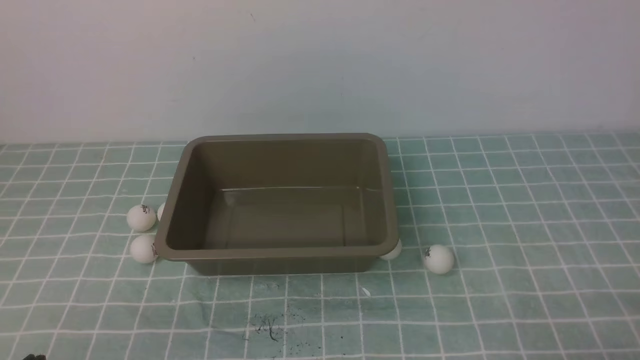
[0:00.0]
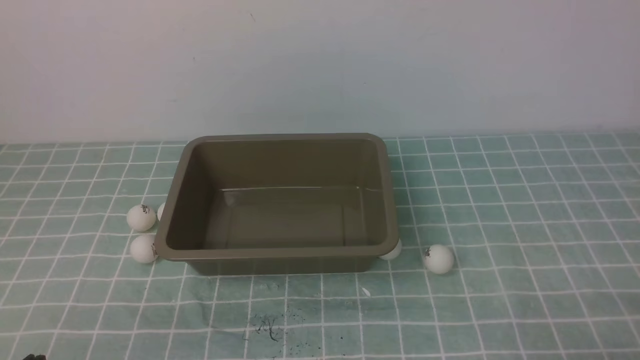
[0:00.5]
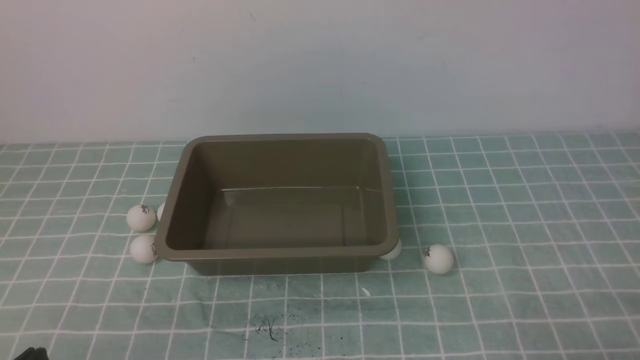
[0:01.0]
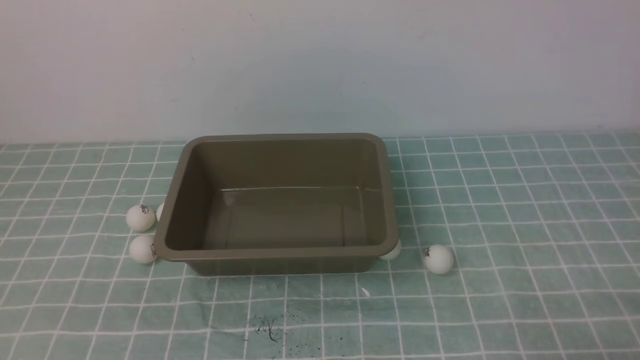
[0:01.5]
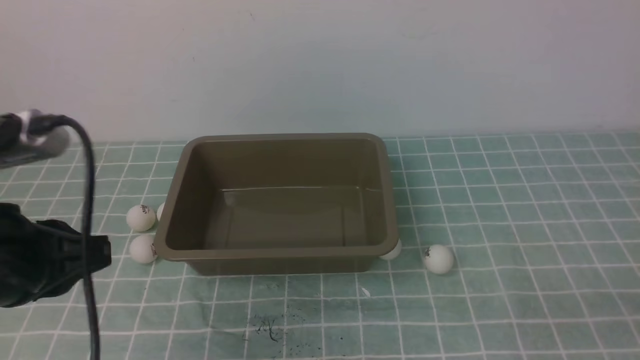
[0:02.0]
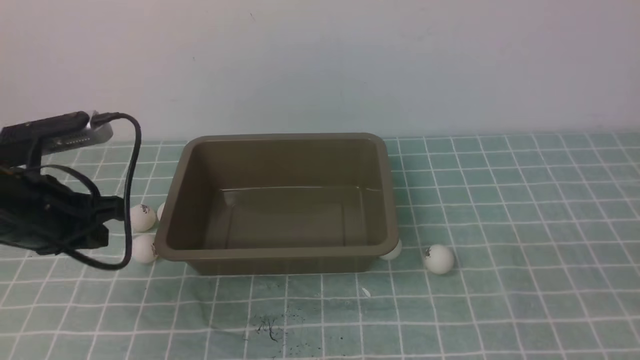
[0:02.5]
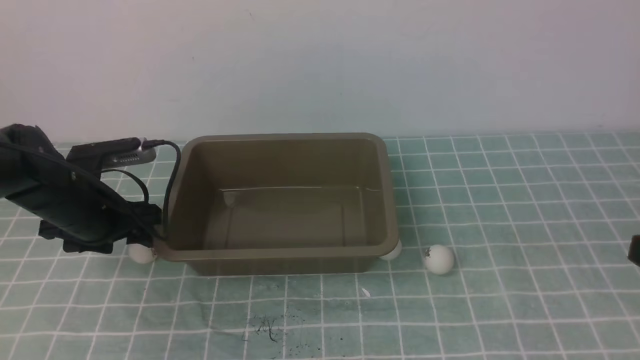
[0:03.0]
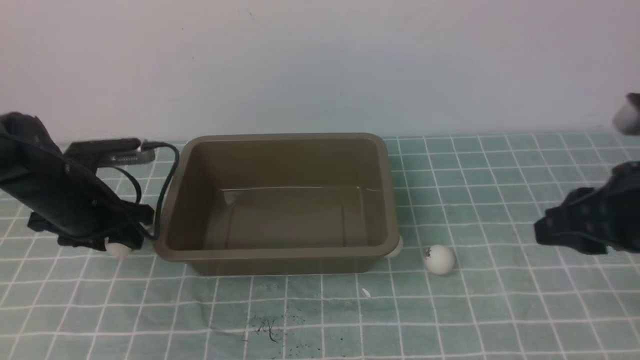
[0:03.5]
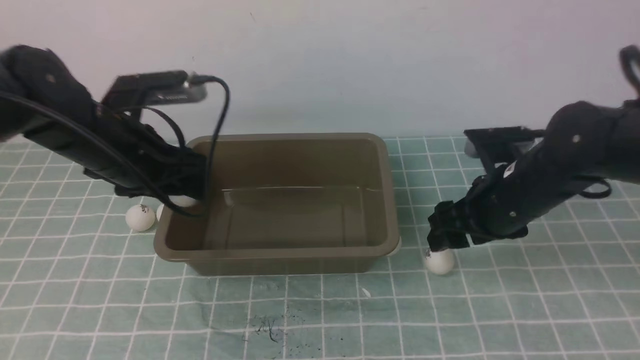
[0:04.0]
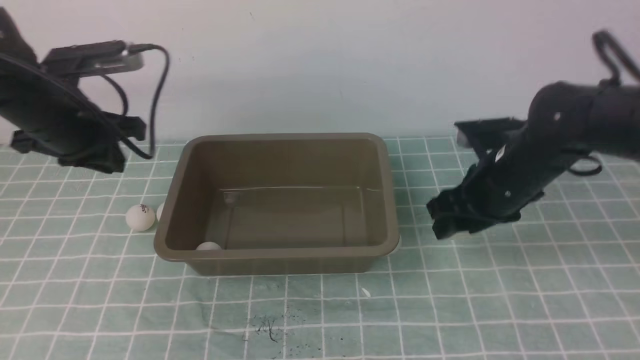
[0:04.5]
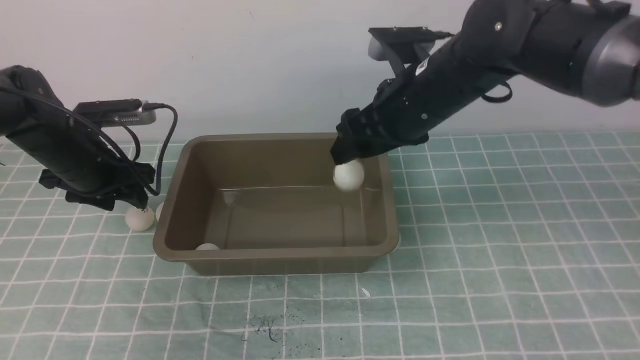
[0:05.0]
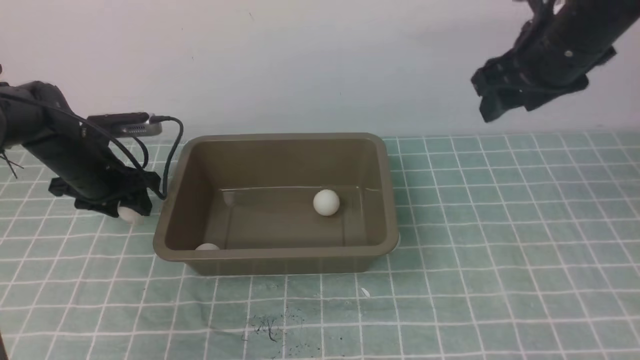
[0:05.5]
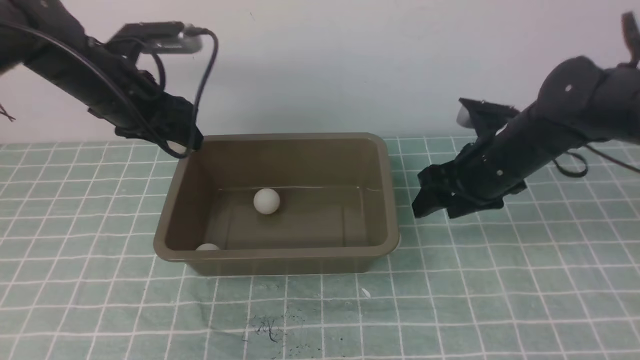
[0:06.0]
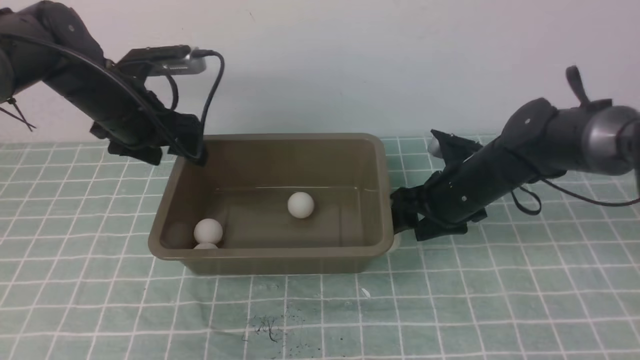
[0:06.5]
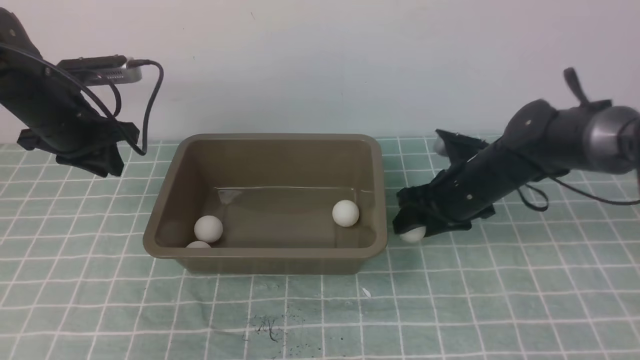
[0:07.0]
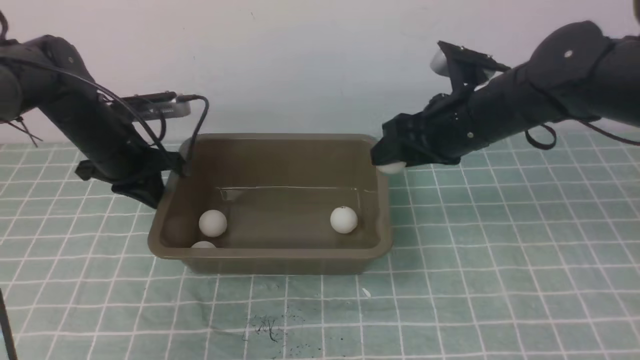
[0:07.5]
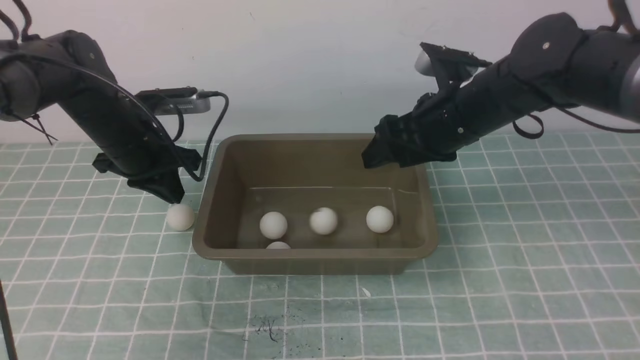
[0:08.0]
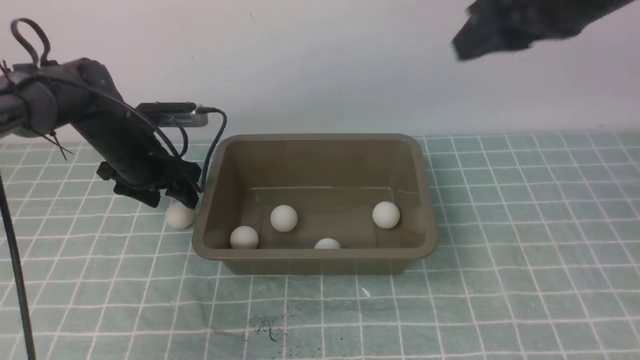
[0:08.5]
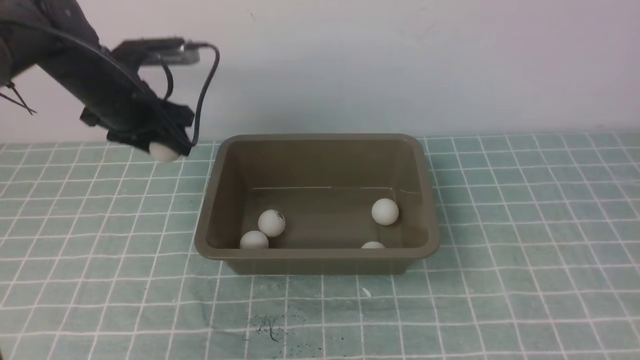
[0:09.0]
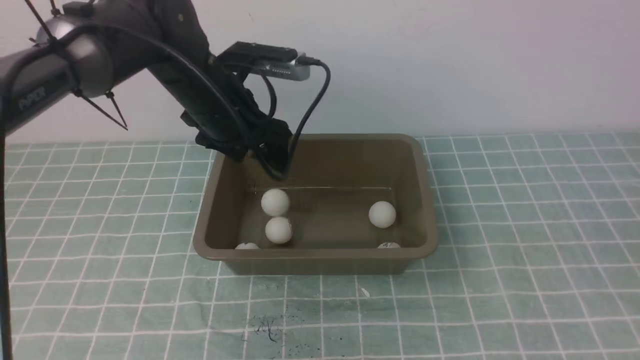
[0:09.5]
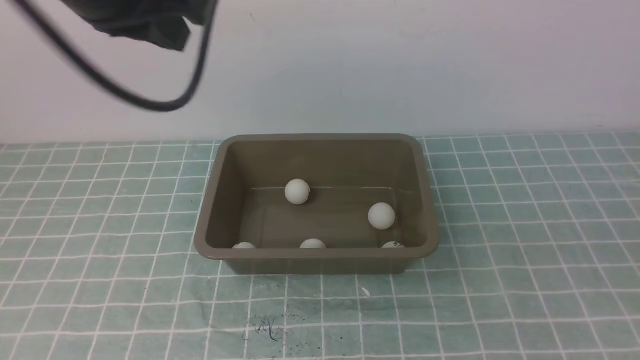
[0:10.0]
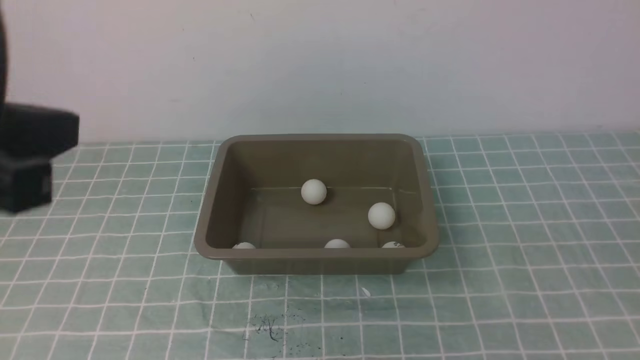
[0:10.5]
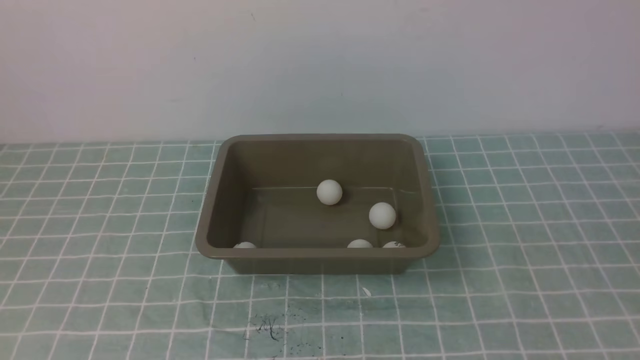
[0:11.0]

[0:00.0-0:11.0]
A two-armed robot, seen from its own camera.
Step, 0:00.0 to 0:03.5: use the left arm to clamp the table tennis ball closest to it.
Step, 0:06.5 to 0:07.0: use the right arm to clamp the table tennis ball closest to it.
Step, 0:07.5 to 0:08.0: use the right arm to put the table tennis ball into the box.
Step, 0:09.0 to 0:09.5: use the left arm to put the table tennis ball into the box.
0:00.0 to 0:02.0: The left gripper shifts some 15 cm upward and forward.
0:02.0 to 0:03.5: The left gripper goes approximately 20 cm forward and downward, and opens its fingers; the right gripper goes approximately 20 cm forward and upward, and opens.
0:03.5 to 0:05.5: The right gripper heads forward, covering roughly 15 cm, and opens up. The left gripper goes roughly 5 cm forward, and goes to the right and returns, roughly 5 cm each way.
0:05.5 to 0:07.5: The right gripper shifts some 5 cm to the left, and travels downward and back again, roughly 15 cm each way. The left gripper closes up.
0:07.5 to 0:09.0: The left gripper is displaced upward by some 5 cm, and opens up. Meanwhile the right gripper is displaced backward, upward and to the right by some 40 cm, and closes up.
0:09.0 to 0:11.0: The left gripper is displaced backward by roughly 40 cm, and closes, while the right gripper heads downward and backward, covering approximately 10 cm.
